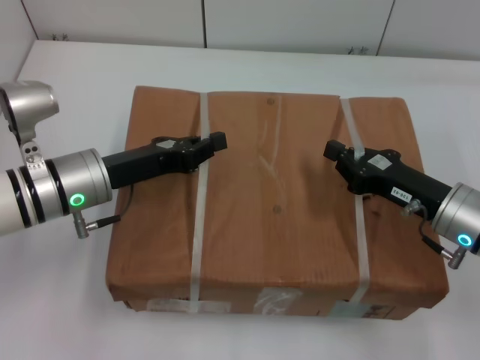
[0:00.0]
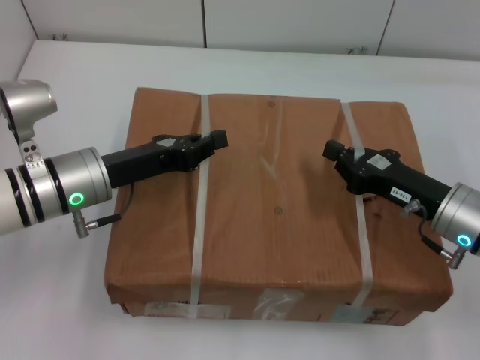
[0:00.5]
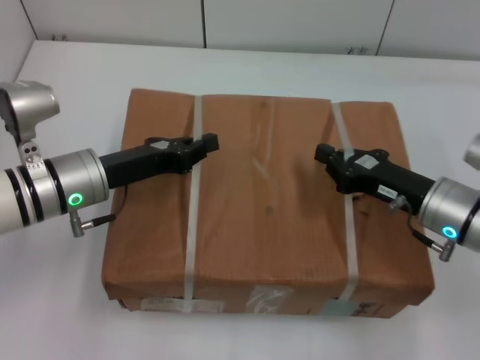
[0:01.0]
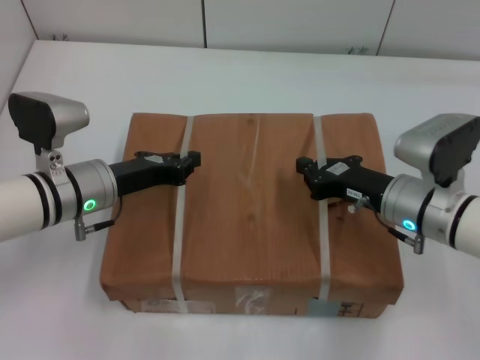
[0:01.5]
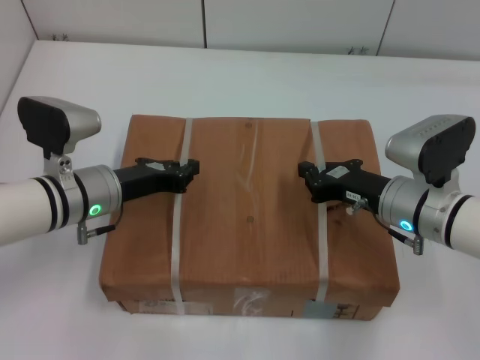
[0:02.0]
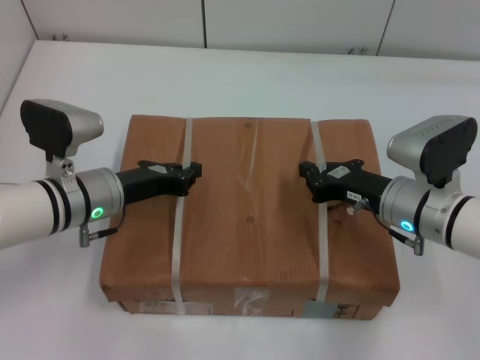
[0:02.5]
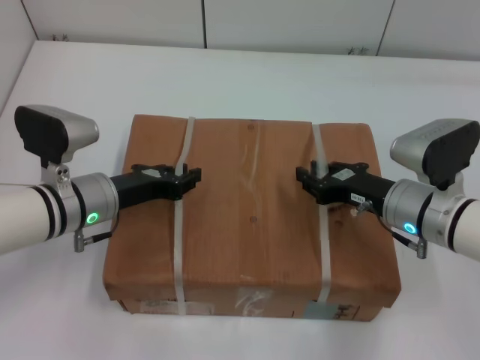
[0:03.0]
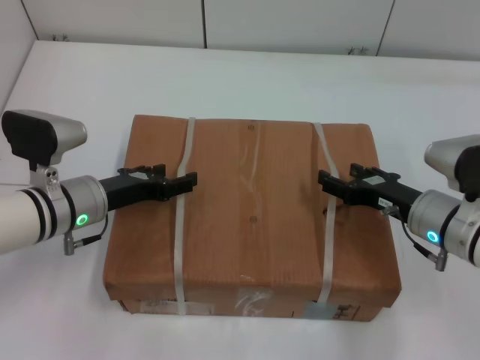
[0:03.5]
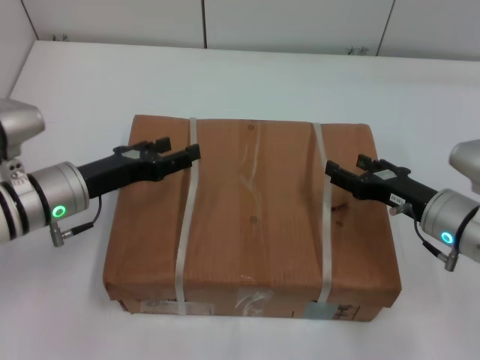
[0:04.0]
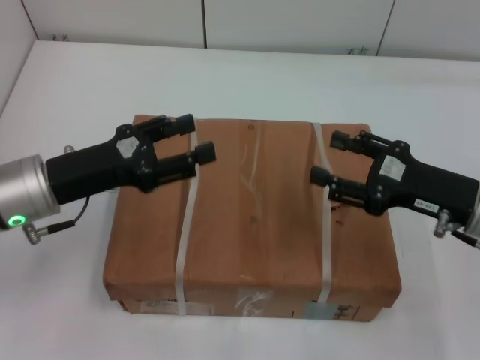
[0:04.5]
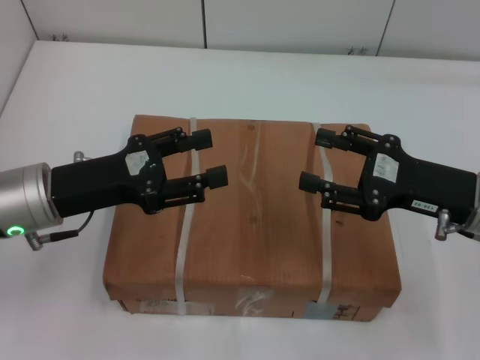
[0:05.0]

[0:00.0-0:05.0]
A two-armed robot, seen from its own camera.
Task of the whole recording: place the box on the table with both arms.
Step, 0:00.0 to 0:02.0: Place the box on the table with left gripper.
Step, 0:00.0 to 0:02.0: Place the box on the table with right gripper.
Step, 0:02.5 to 0:03.0: Loosen the box on the table with left gripper.
Step, 0:02.5 to 0:03.0: Loosen the box on the table with right gripper.
0:00.0 to 0:02.5: The right gripper ends up approximately 5 cm from where it was.
0:02.5 to 0:05.0: The right gripper heads upward and to the right, covering about 10 cm, and opens. Meanwhile the left gripper goes approximately 10 cm upward and backward, and opens its fingers.
